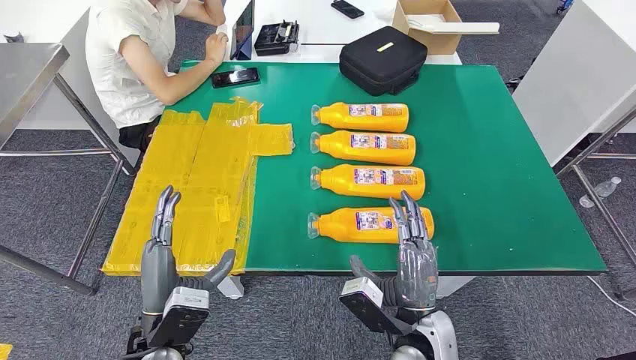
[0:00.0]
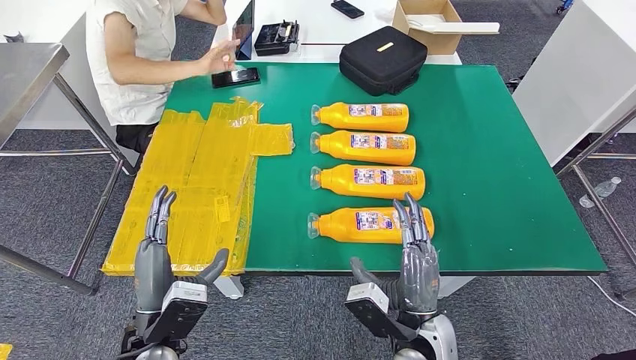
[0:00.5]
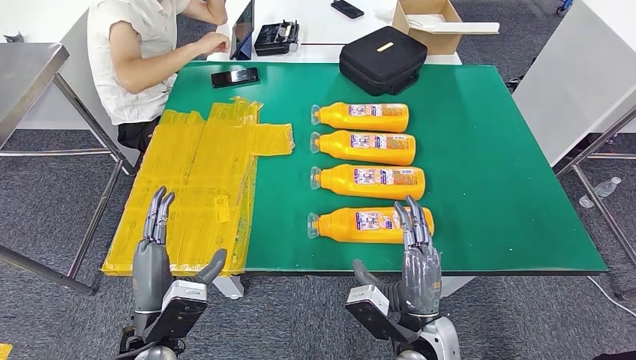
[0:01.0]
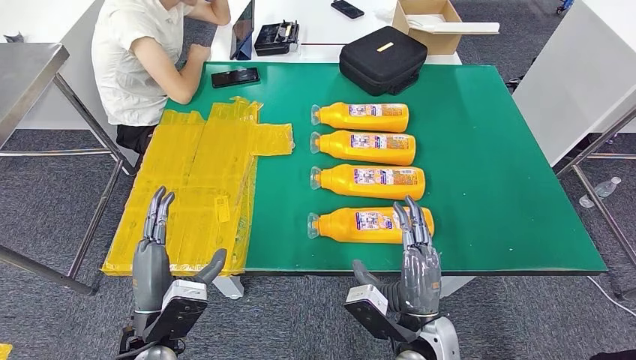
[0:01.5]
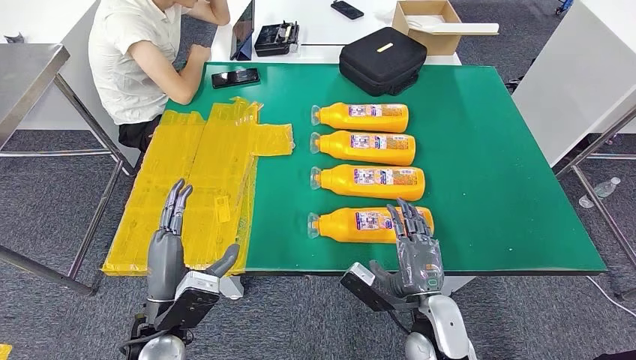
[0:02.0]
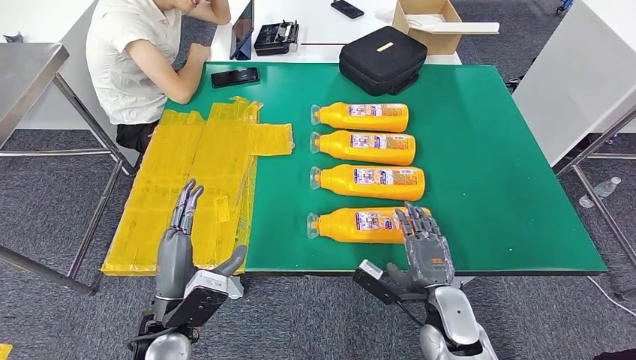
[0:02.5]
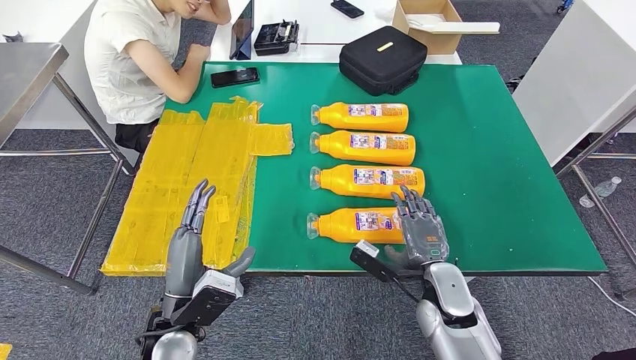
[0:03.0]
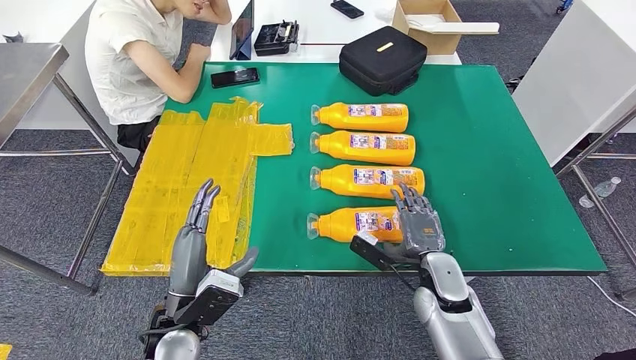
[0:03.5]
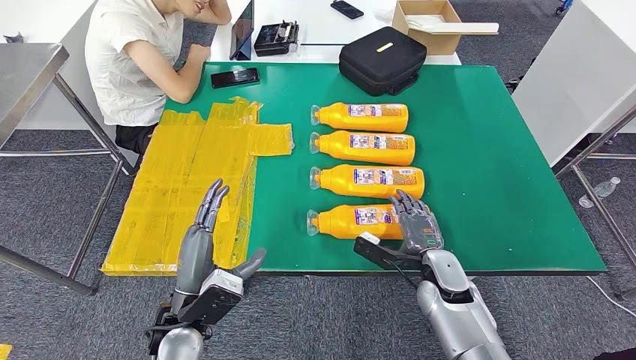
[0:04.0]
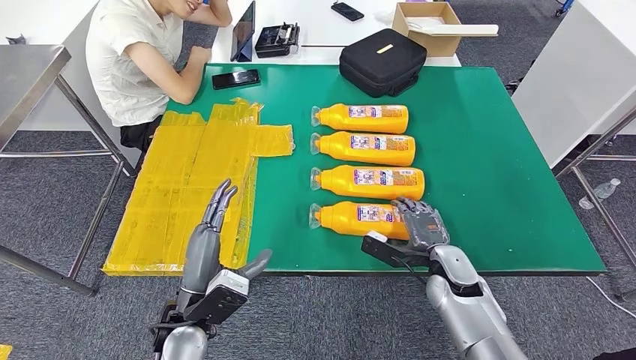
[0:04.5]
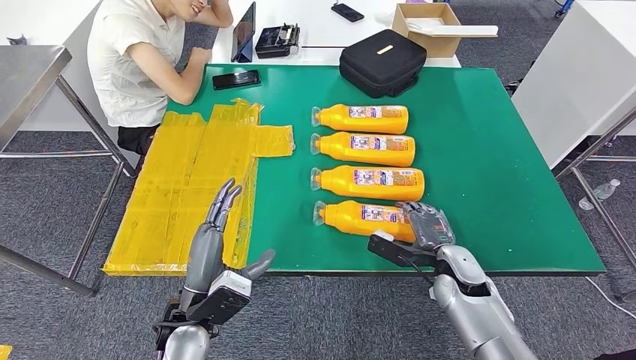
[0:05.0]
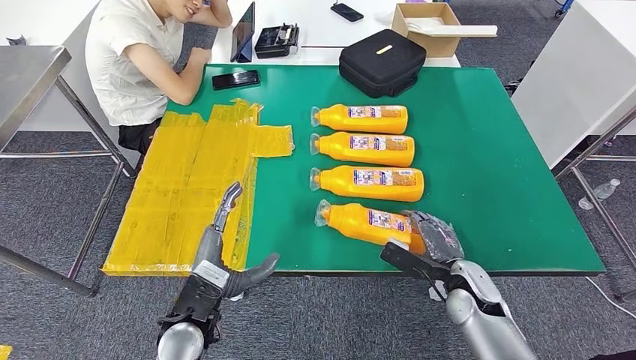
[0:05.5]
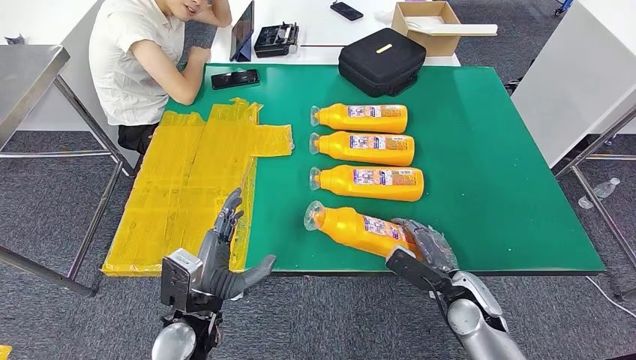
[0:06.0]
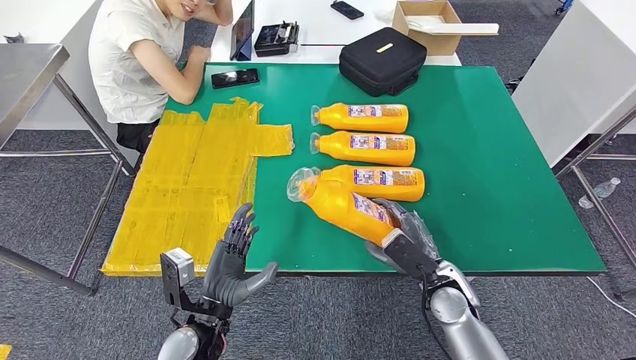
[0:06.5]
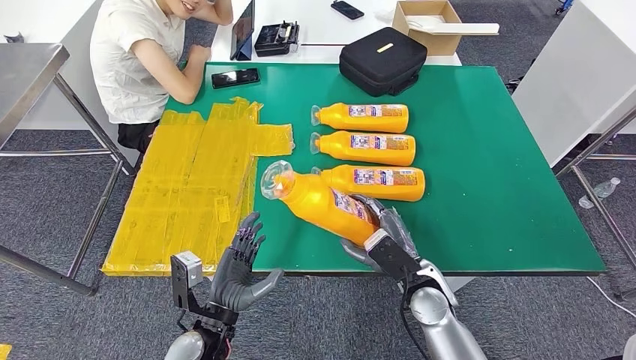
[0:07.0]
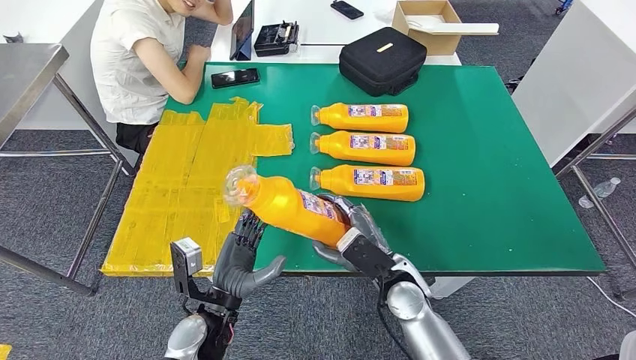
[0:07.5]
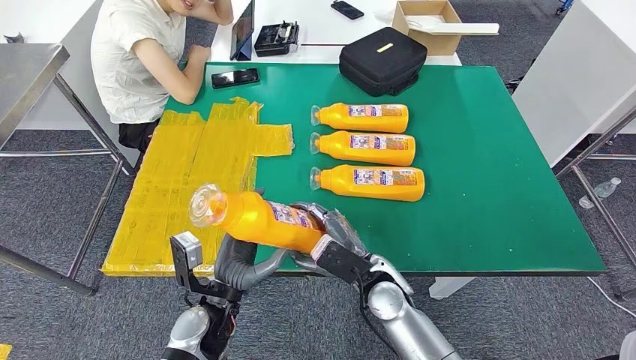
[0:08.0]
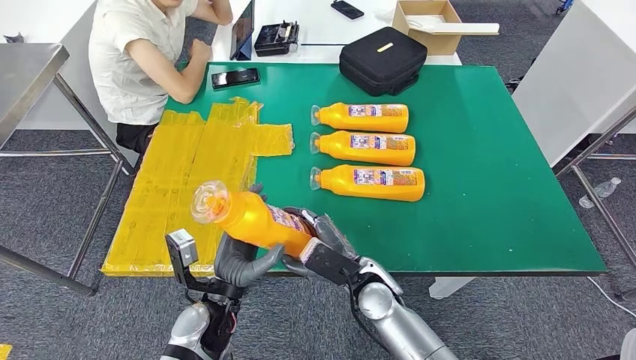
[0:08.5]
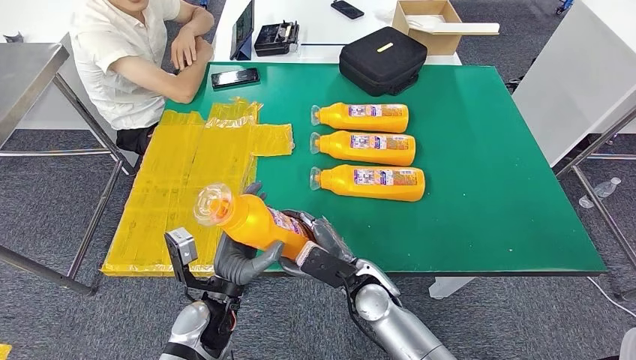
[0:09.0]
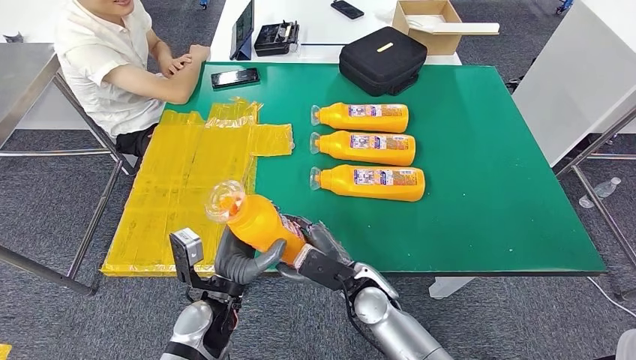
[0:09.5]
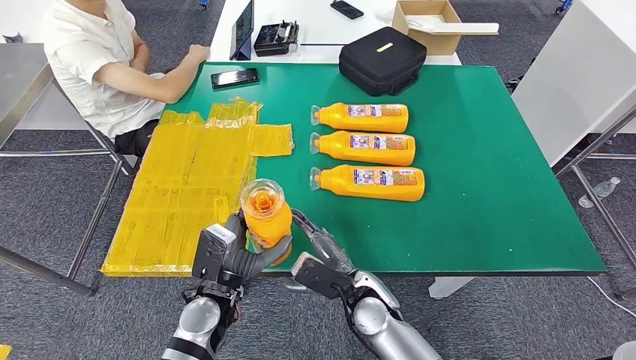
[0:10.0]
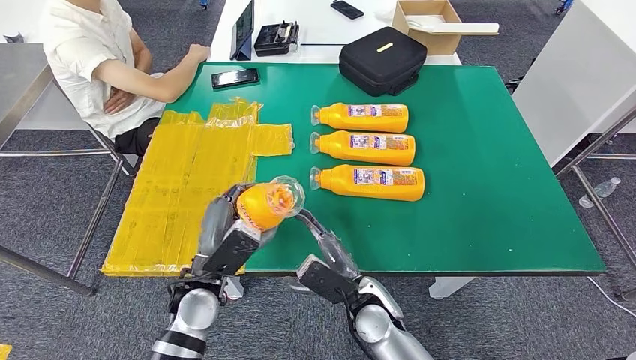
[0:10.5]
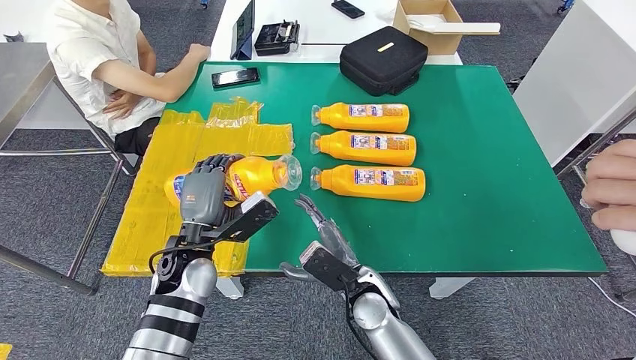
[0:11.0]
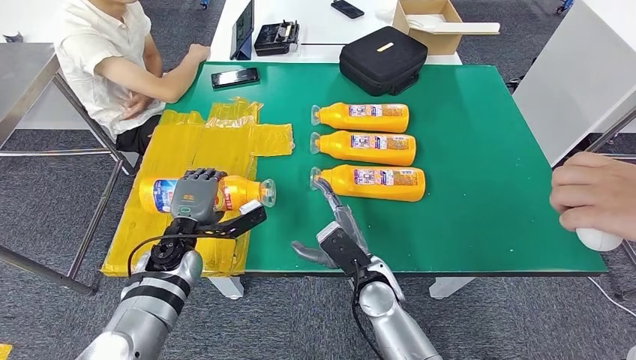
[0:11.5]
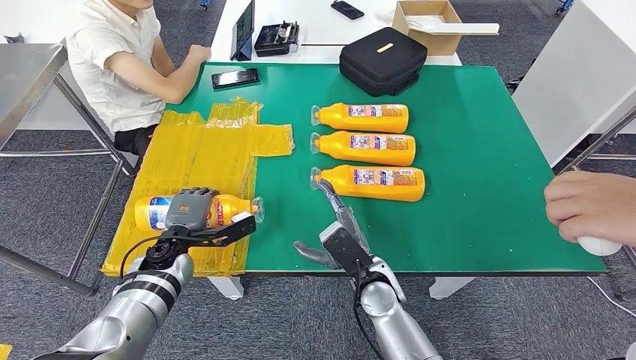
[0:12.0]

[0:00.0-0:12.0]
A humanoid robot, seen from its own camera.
Step, 0:00.0 to 0:08.0: Take the fast-moving consumer goods bottle from the table.
0:02.0 to 0:04.0: The right hand heads forward and to the right, covering about 10 cm.
0:04.0 to 0:06.0: The right hand changes place by some 5 cm.
0:06.0 to 0:08.0: The right hand moves to the left, about 15 cm.
0:10.0 to 0:12.0: The left hand shifts approximately 15 cm forward and to the left.

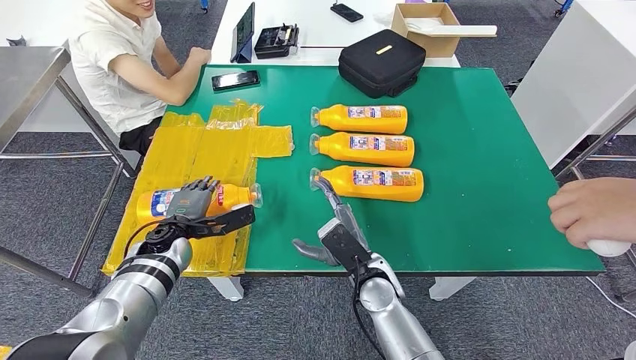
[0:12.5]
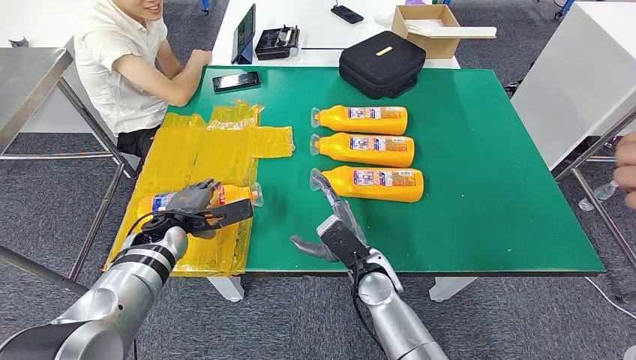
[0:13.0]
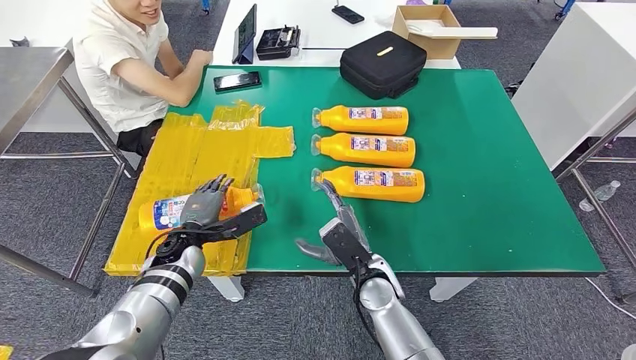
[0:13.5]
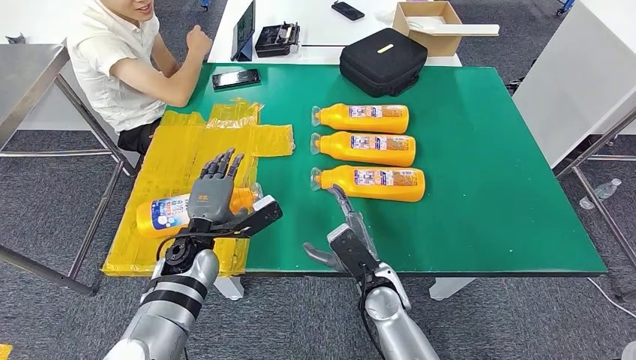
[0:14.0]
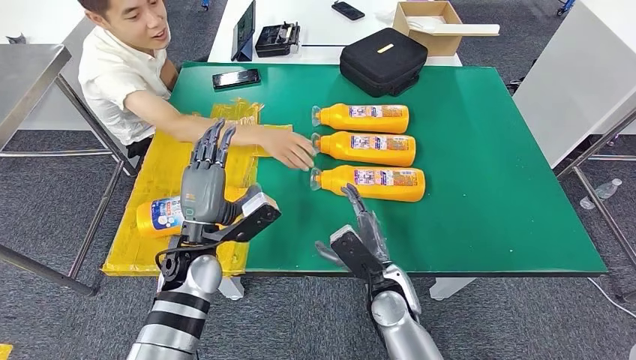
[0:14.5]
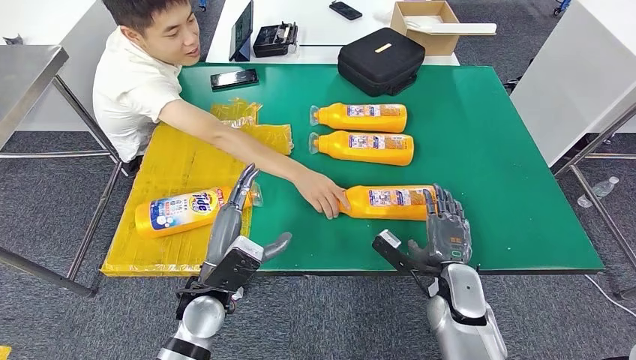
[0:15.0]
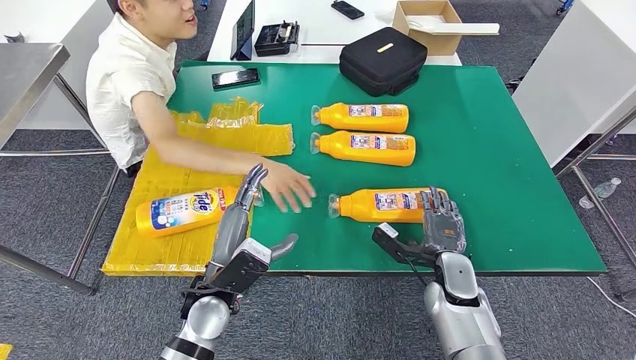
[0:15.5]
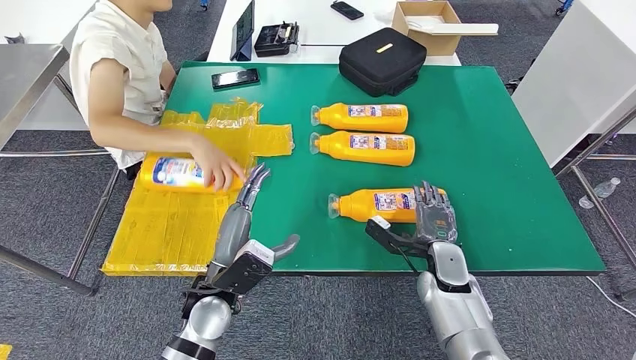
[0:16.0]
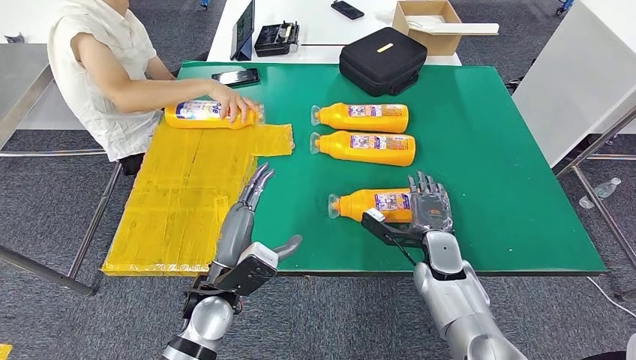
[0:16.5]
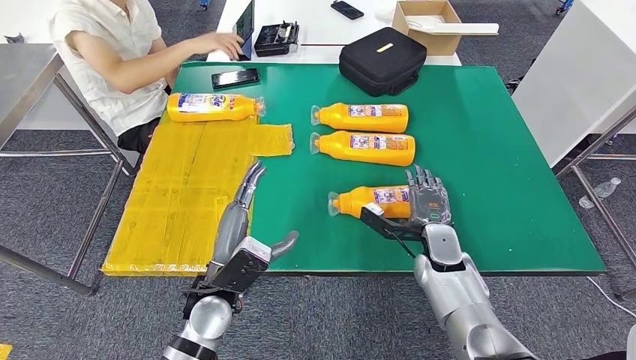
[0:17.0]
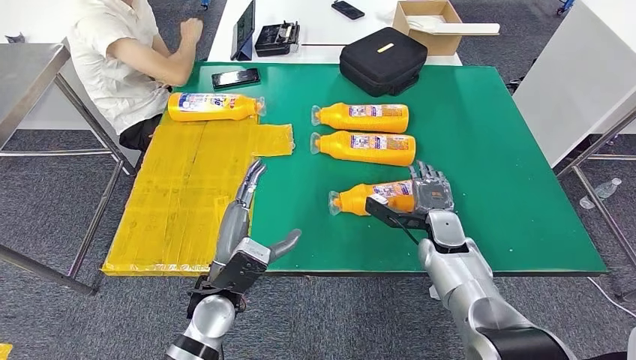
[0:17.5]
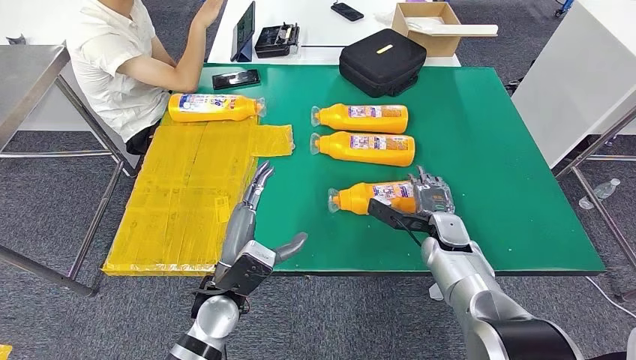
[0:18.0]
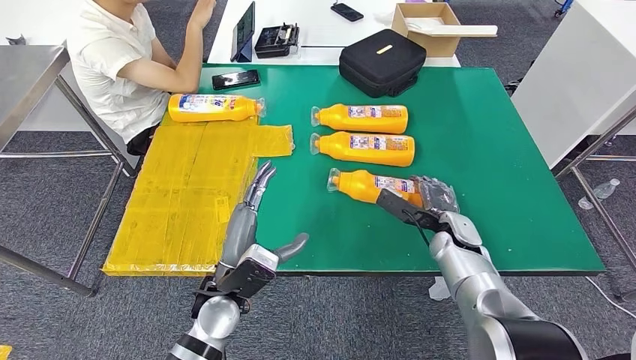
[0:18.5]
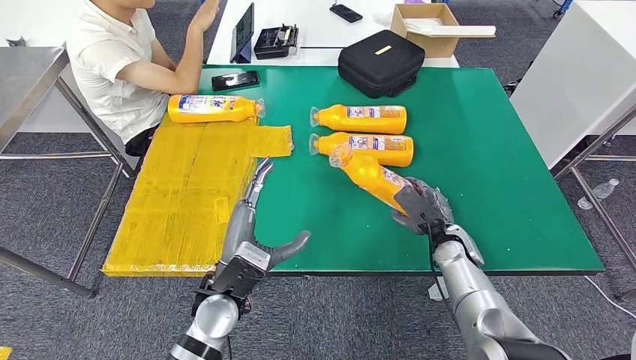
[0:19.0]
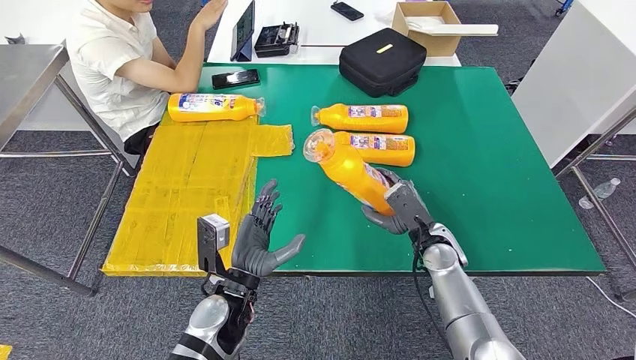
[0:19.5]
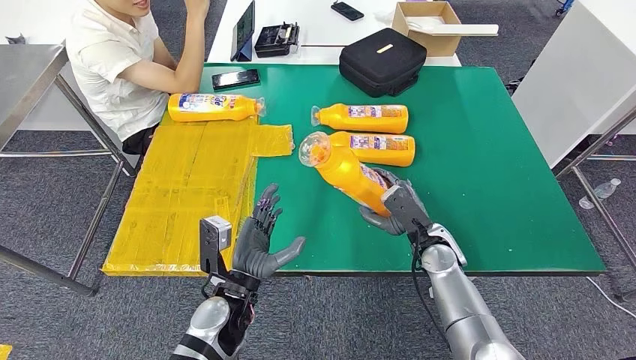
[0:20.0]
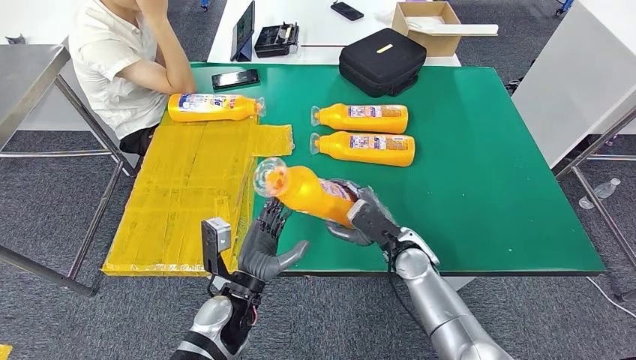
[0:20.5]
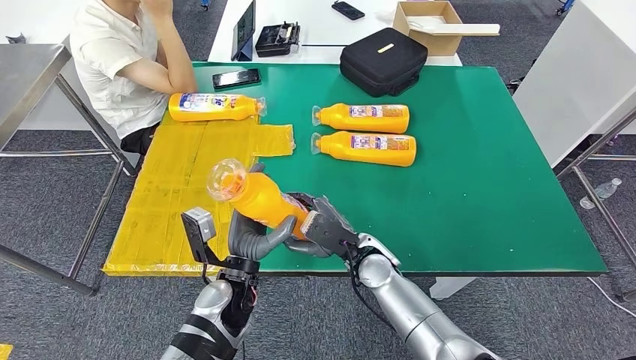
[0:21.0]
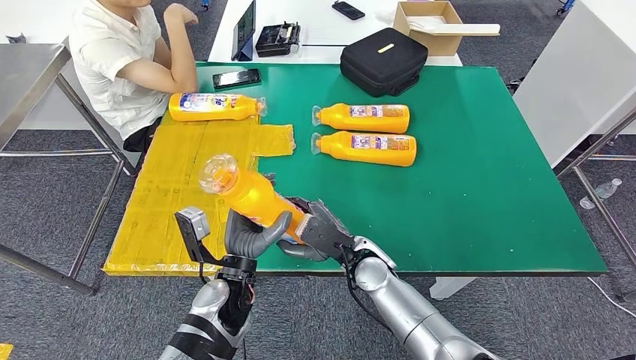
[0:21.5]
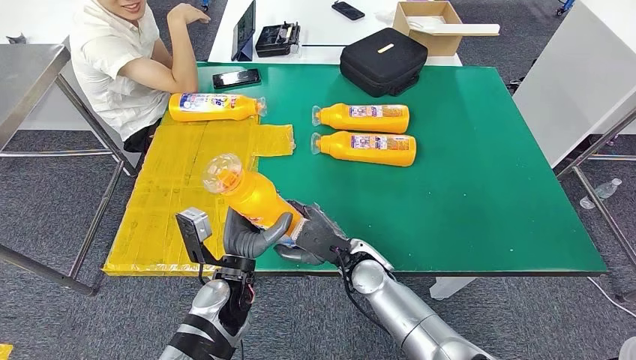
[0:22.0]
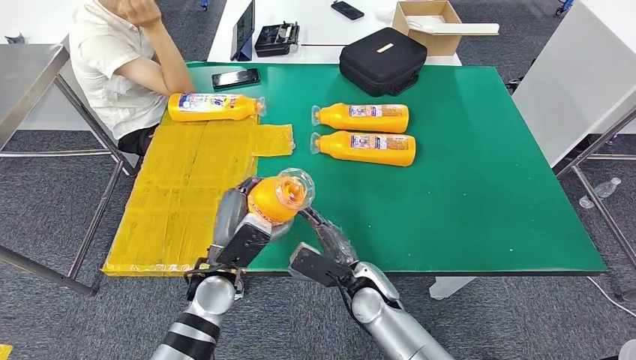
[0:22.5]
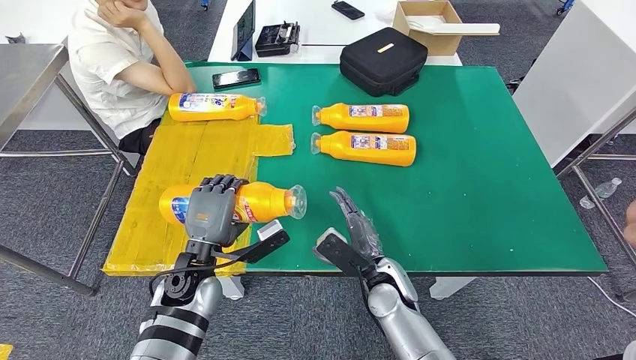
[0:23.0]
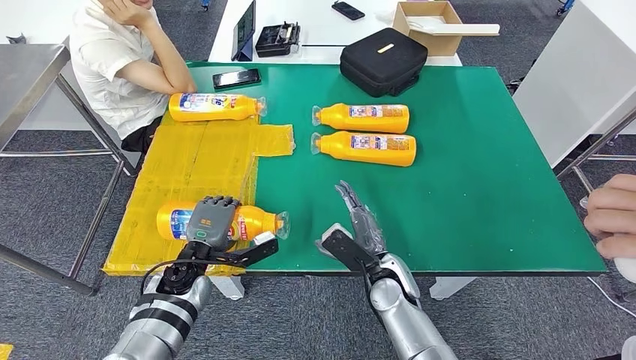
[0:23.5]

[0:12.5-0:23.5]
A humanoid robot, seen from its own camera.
Step, 0:12.5 to 0:14.5: Flip the fast-moving consumer goods bottle to the front side.
Step, 0:15.0 to 0:21.0: Pick up the fast-moving consumer goods bottle from the table.
0:16.0 to 0:18.0: The right hand shifts approximately 5 cm forward.
0:18.0 to 0:20.0: The right hand moves to the left, about 5 cm.
0:20.0 to 0:21.5: The right hand shifts some 15 cm to the left.
0:21.5 to 0:23.5: The left hand travels to the left and forward by roughly 10 cm.
